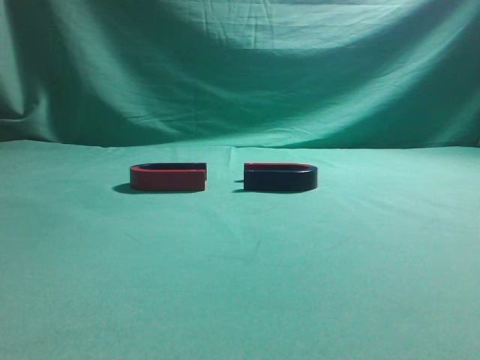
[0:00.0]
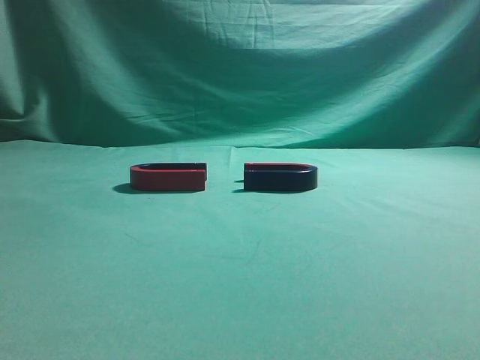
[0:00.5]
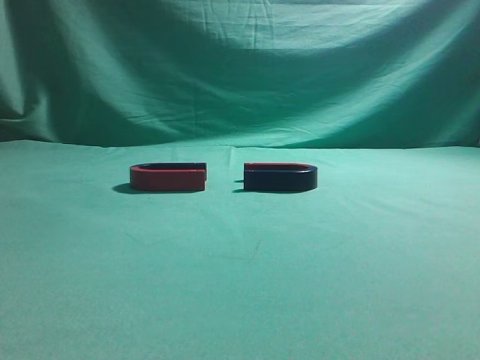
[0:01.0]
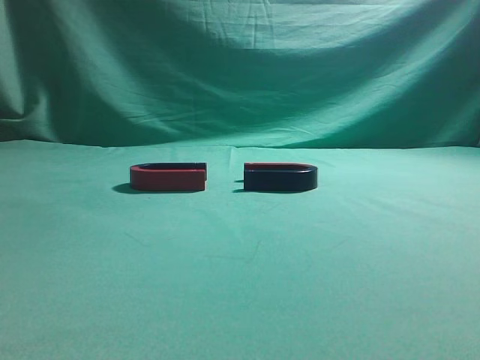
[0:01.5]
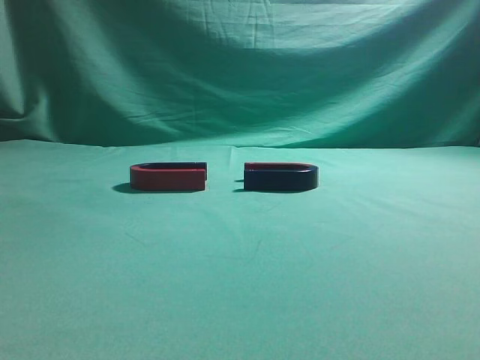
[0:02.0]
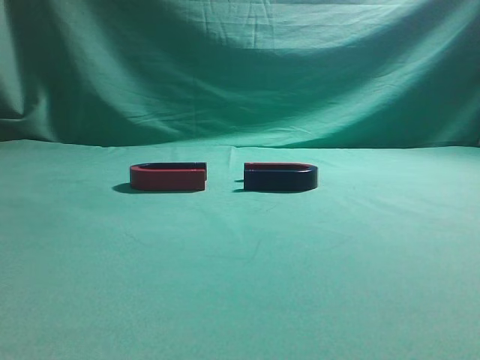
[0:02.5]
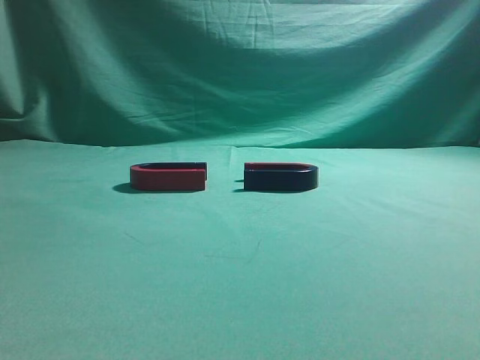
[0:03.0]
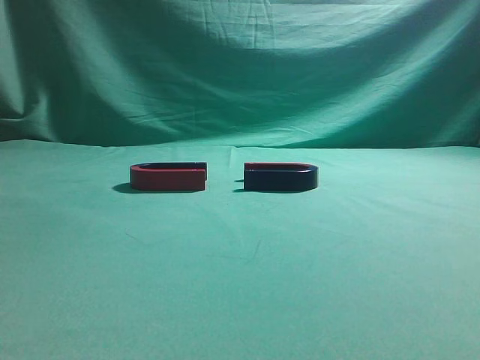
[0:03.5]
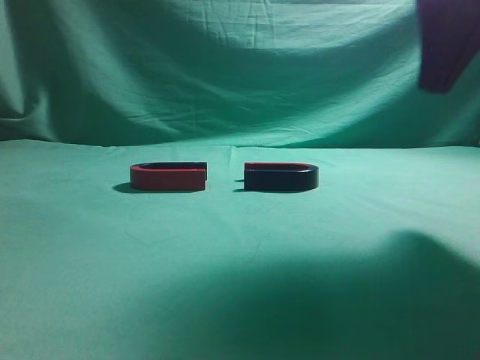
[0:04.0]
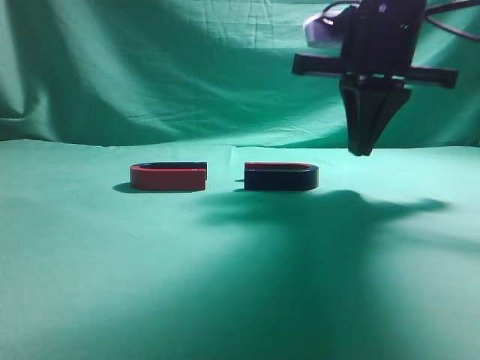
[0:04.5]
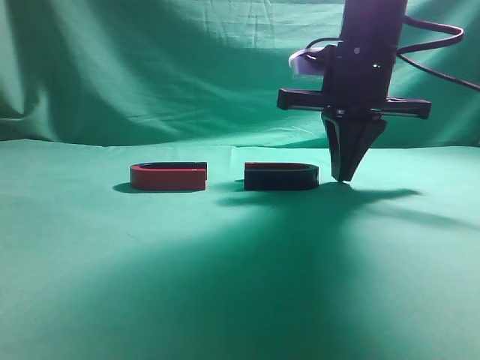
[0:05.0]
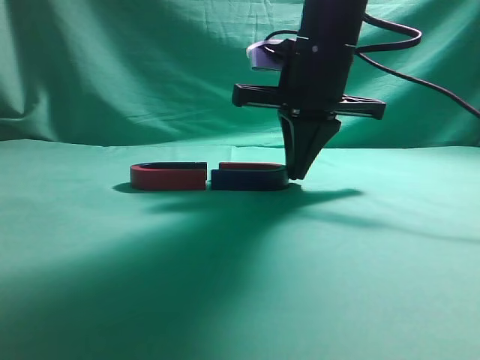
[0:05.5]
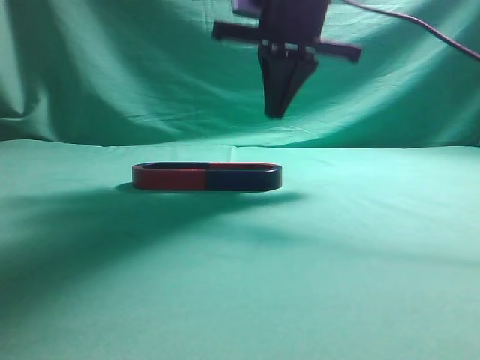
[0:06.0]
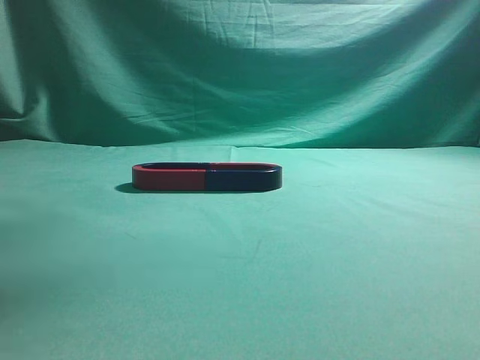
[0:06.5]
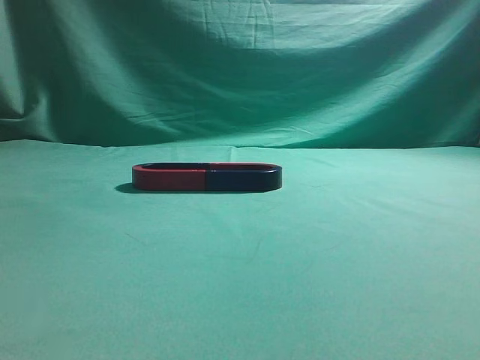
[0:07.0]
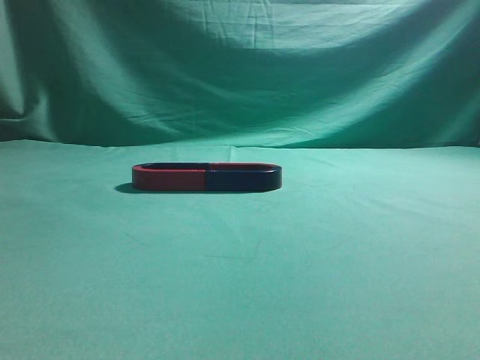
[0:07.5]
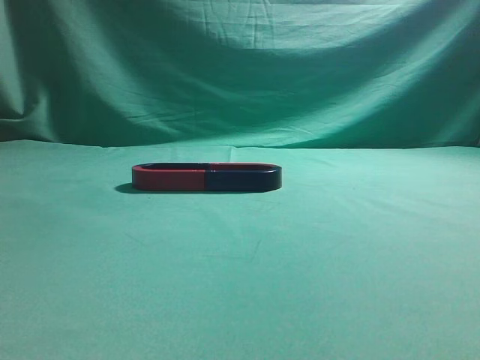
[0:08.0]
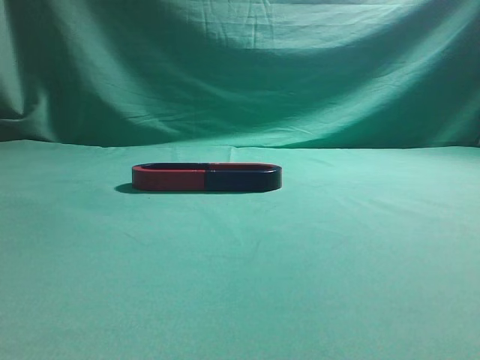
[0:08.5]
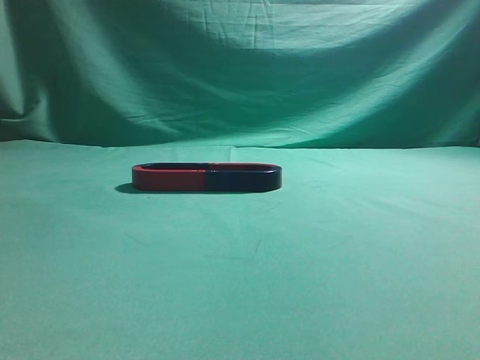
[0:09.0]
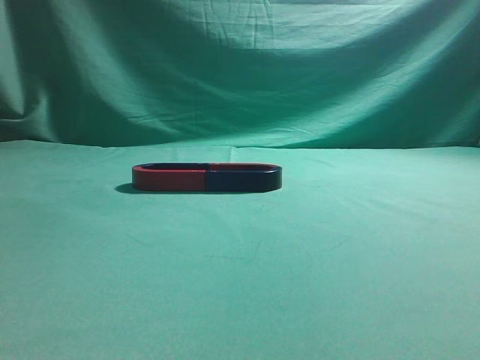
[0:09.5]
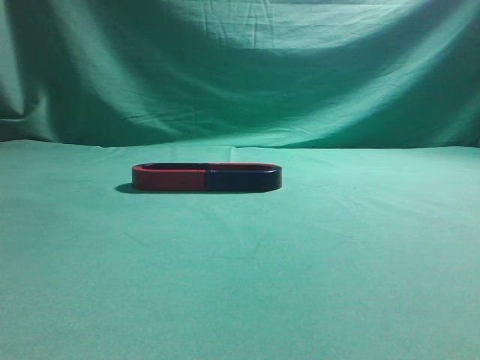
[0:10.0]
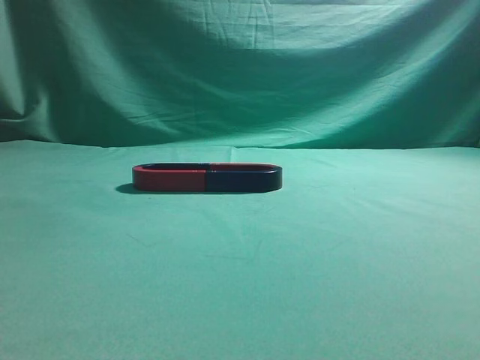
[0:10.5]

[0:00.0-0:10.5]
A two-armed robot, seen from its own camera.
Task of the whole recording: push the magnet on the table from its original position to another position.
Step, 0:00.0 to 0:05.5: Push the magnet on the right to connect the magnet on the left.
0:02.0 to 0:04.0: The right gripper shifts about 25 cm forward and to the left.
0:04.0 to 0:06.5: The right gripper heads upward, to the left and forward, covering roughly 20 cm.
